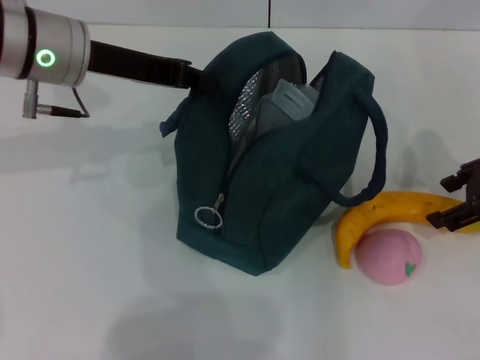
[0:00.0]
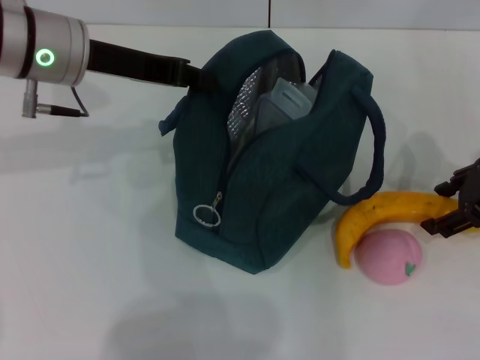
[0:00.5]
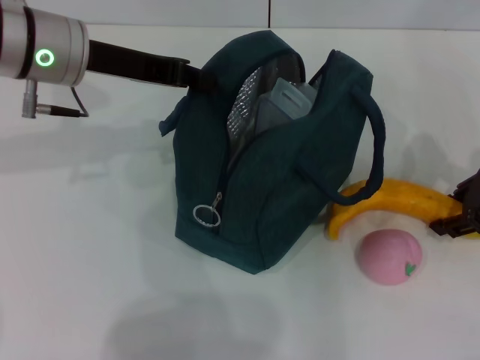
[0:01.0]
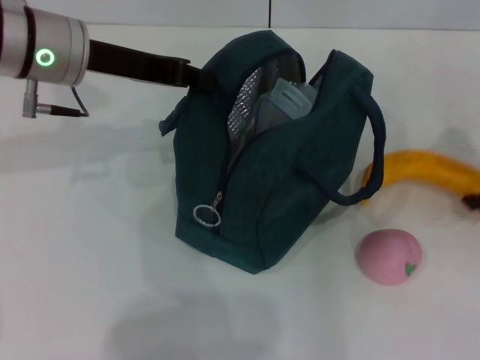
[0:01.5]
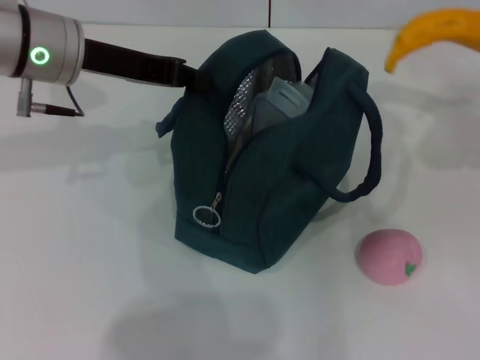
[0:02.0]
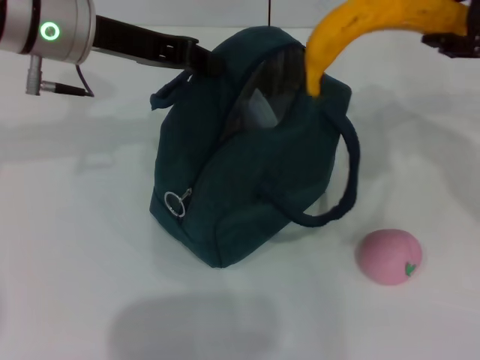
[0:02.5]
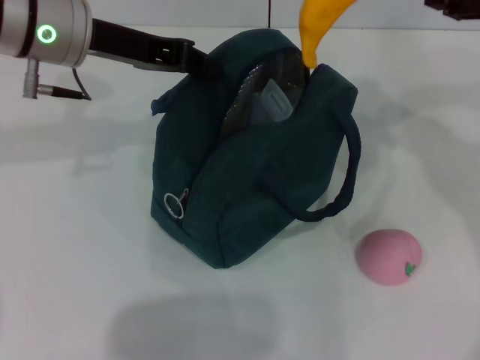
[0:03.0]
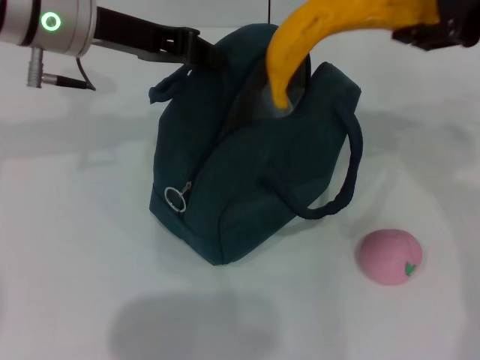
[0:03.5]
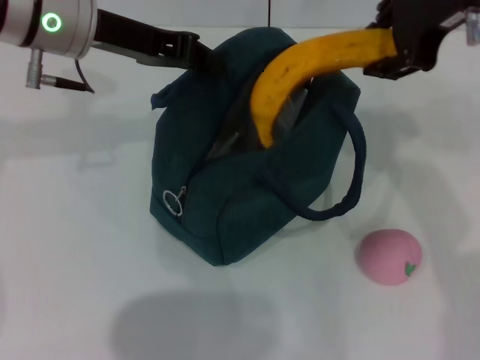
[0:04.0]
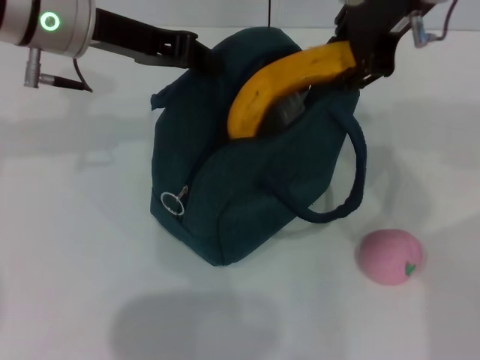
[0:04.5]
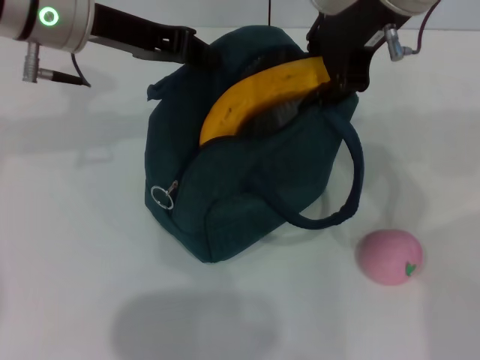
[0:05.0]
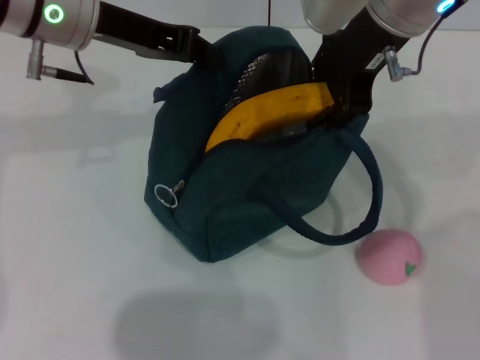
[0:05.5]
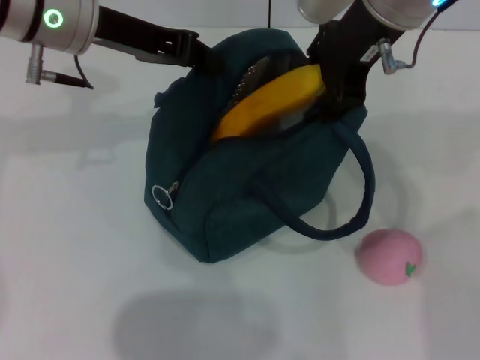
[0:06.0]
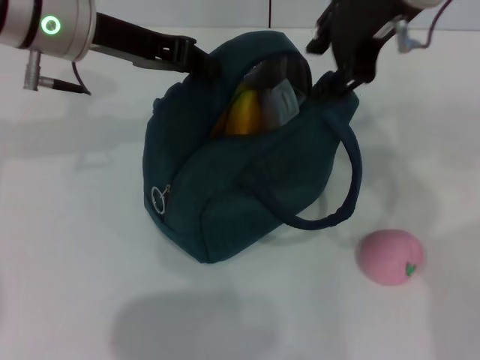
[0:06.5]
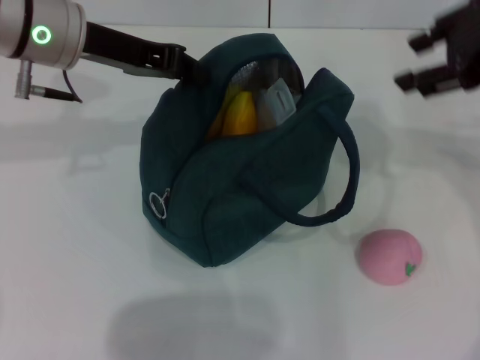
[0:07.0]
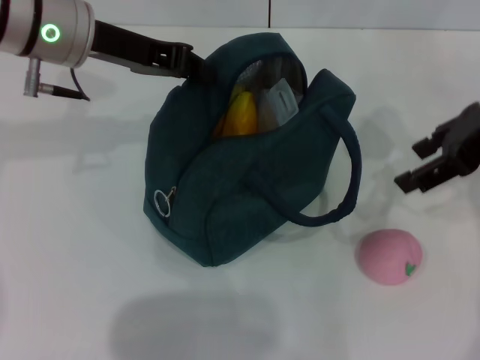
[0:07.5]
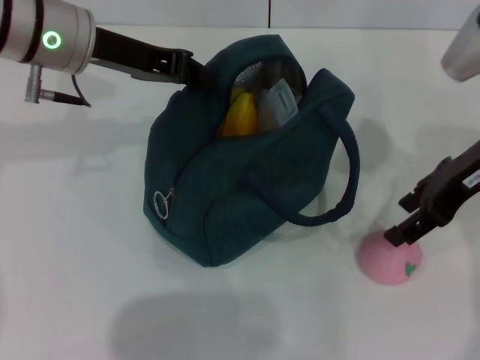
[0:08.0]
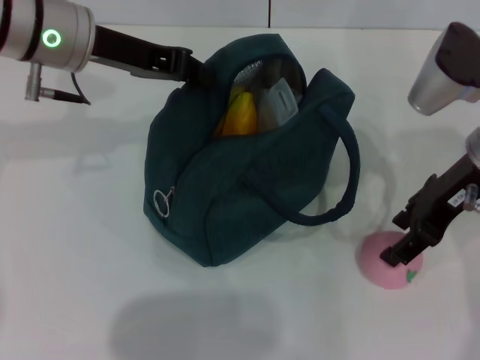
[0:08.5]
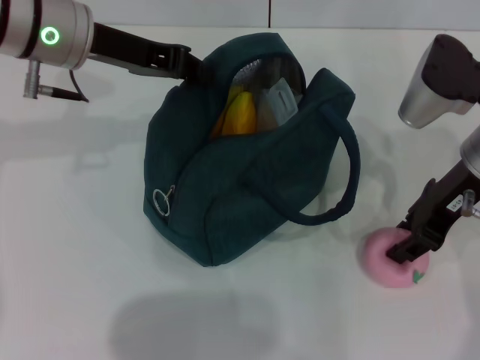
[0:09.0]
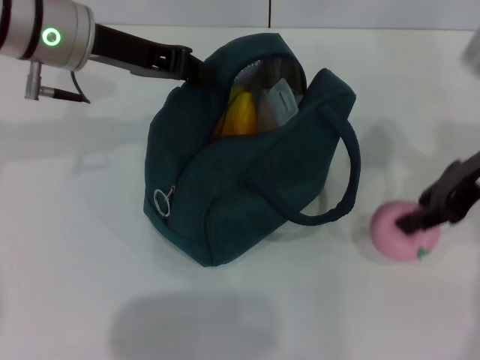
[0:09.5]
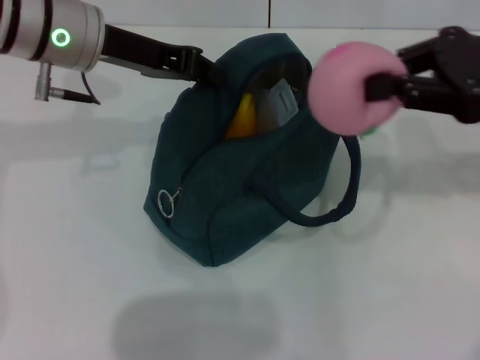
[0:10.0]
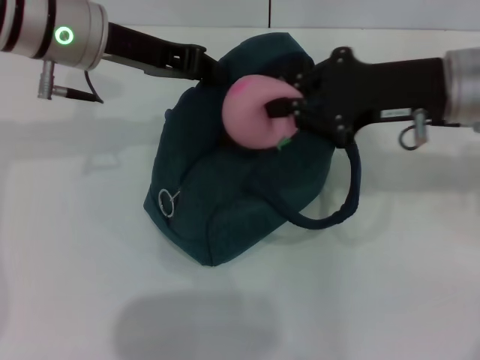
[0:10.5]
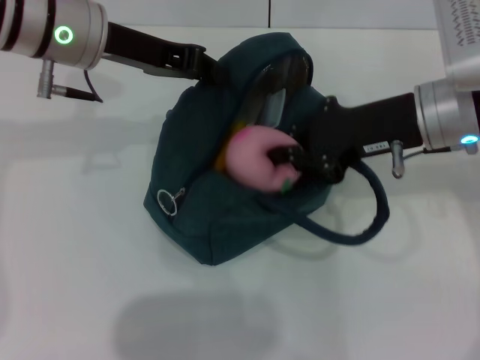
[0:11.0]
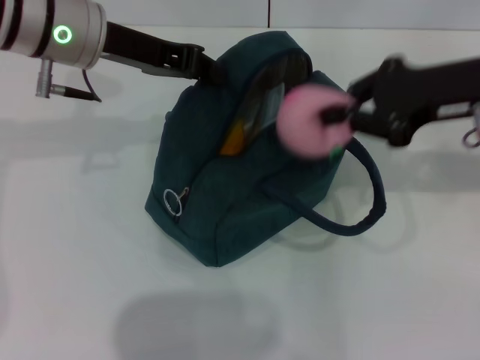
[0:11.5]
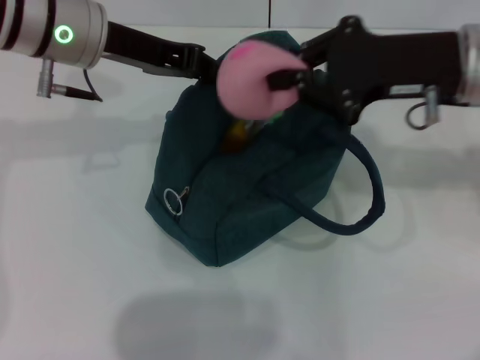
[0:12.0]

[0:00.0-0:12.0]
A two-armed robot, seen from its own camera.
Step, 1.5 to 6.0 s: Put the banana into the lunch bag with your right hand.
Step, 6.5 to 9.0 s: Grab the peach with your right hand.
0.0 to 2.0 s: The right gripper travels upward by about 5 cm, and closes up.
2.0 to 4.0 s: The right gripper shifts about 20 cm to the left and upward.
4.0 to 6.0 s: The right gripper travels to the left by about 5 cm.
6.0 to 8.0 s: The right gripper heads to the right and downward, covering about 15 cm.
8.0 to 10.0 s: The right gripper moves about 5 cm, and closes its fingers.
10.0 to 12.0 s: The right gripper heads to the left, covering roughly 5 cm.

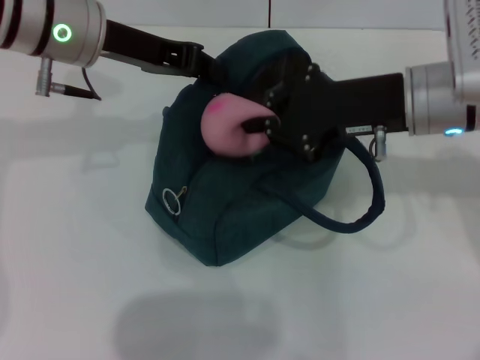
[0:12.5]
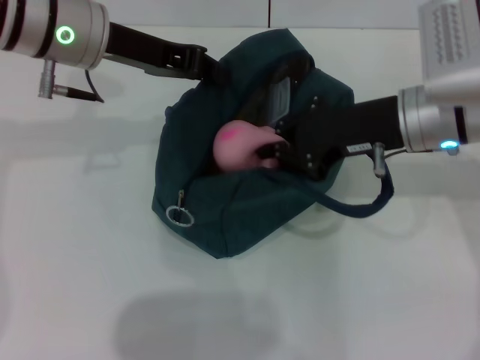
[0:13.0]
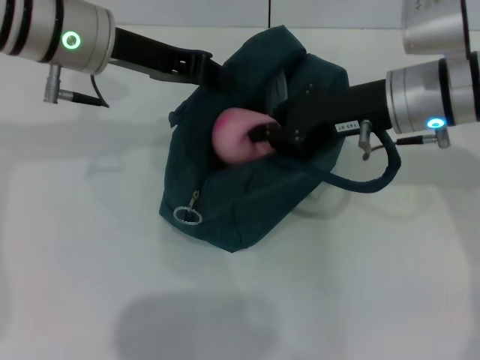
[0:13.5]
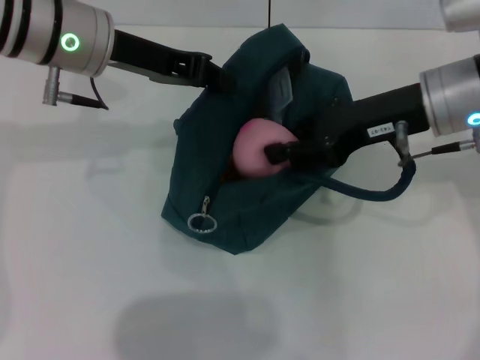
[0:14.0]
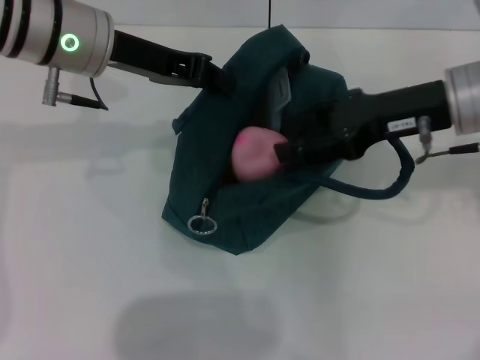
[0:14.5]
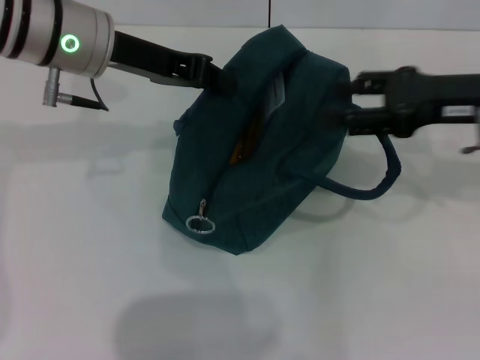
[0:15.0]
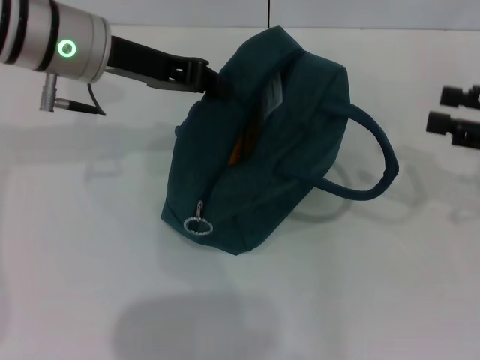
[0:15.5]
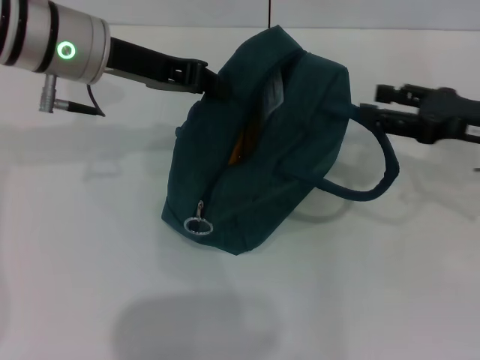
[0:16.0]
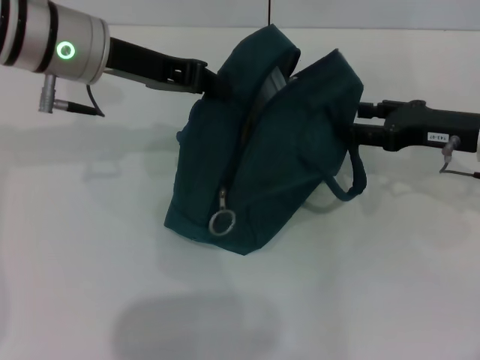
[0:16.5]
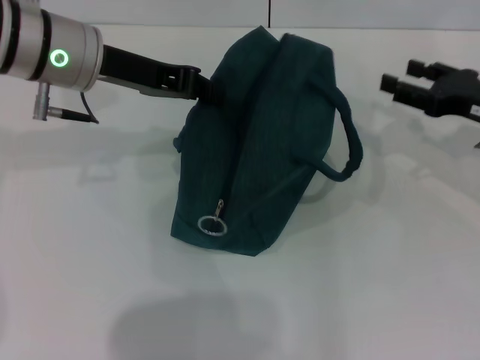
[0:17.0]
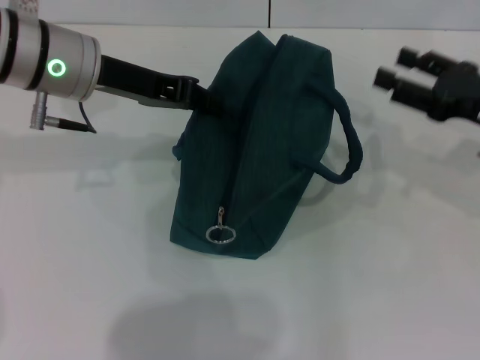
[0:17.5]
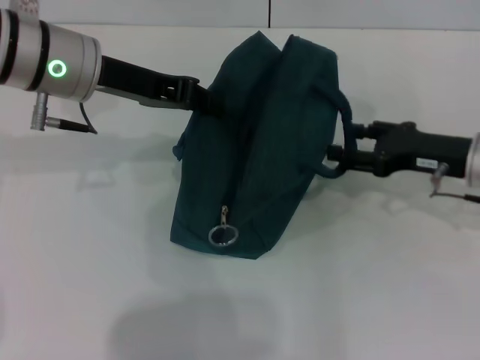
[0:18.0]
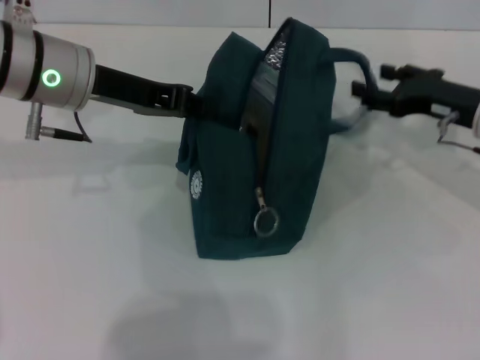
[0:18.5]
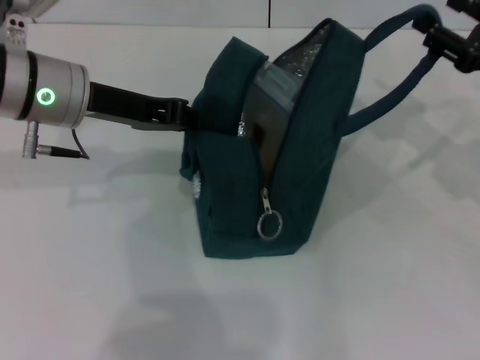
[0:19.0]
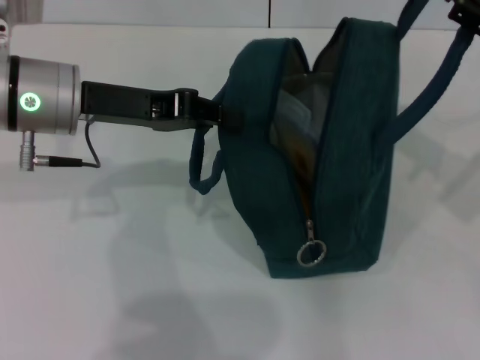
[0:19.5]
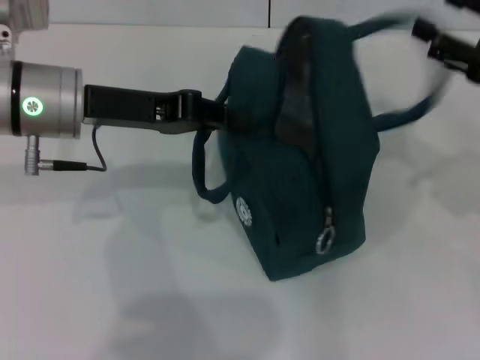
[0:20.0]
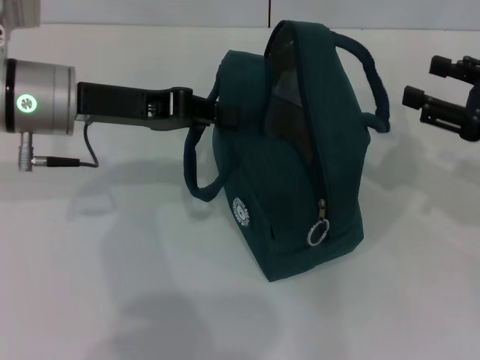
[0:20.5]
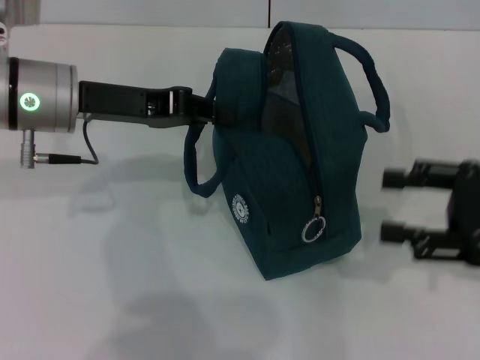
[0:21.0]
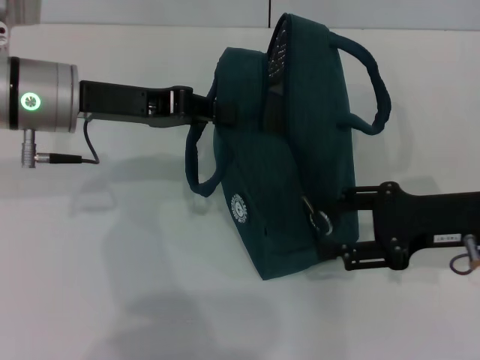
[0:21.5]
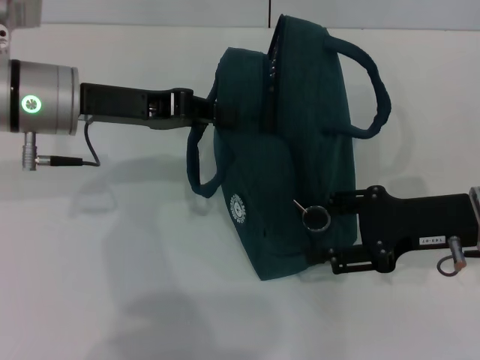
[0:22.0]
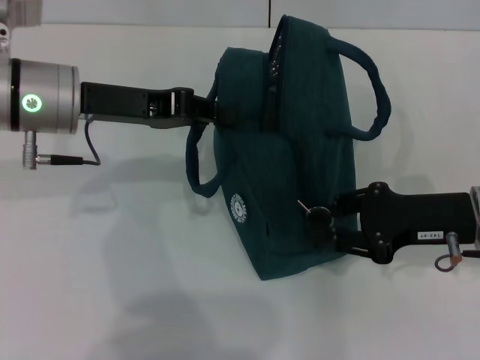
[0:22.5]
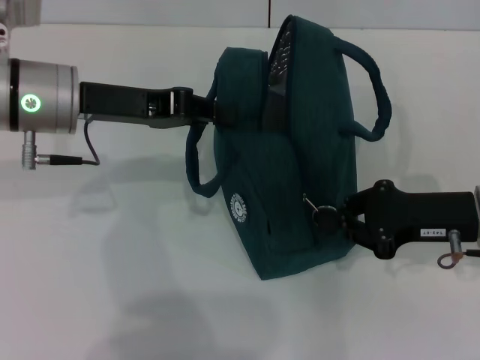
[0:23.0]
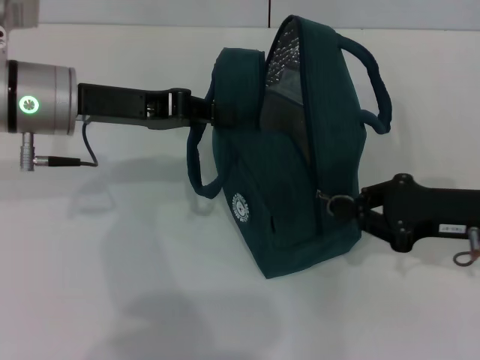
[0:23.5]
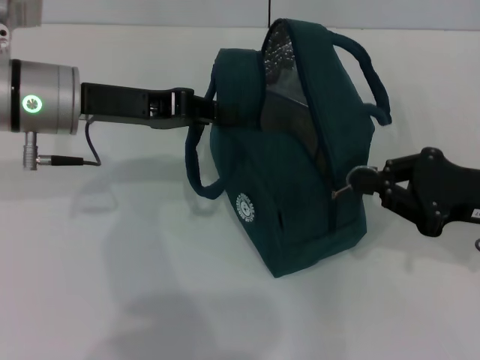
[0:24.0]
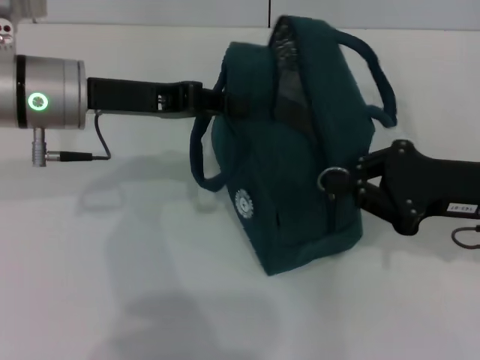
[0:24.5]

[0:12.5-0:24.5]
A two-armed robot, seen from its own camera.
Step, 15.0 to 20.0 s: Hold the lunch bag with your right hand.
12.5 to 14.5 s: The right gripper opens its fingers.
14.5 to 16.5 s: The right gripper shifts approximately 10 cm downward and to the right.
18.5 to 20.5 s: The right gripper heads backward, covering some 10 cm.
20.5 to 22.5 s: The right gripper moves to the left and downward, roughly 10 cm.
22.5 to 24.5 s: The right gripper closes up.

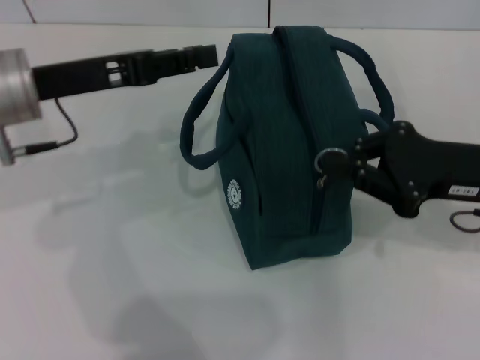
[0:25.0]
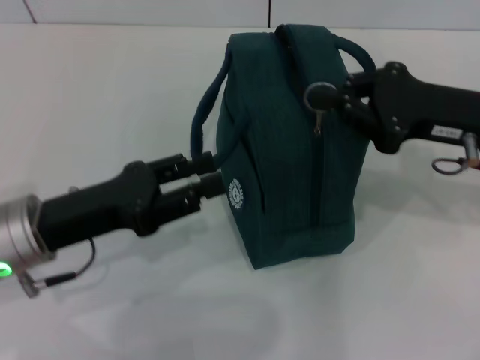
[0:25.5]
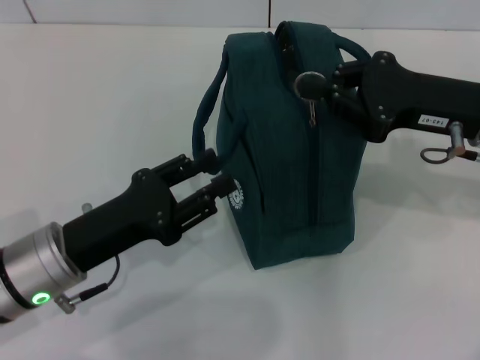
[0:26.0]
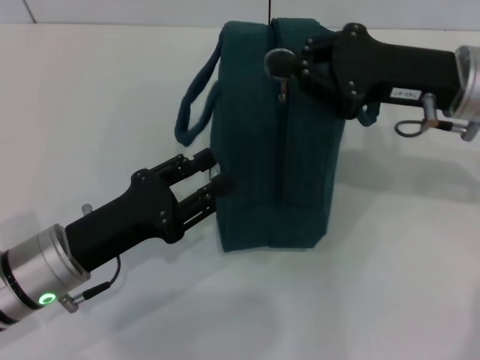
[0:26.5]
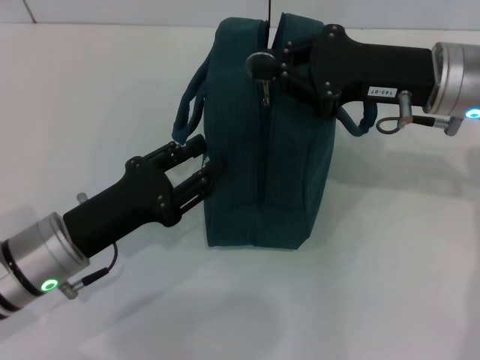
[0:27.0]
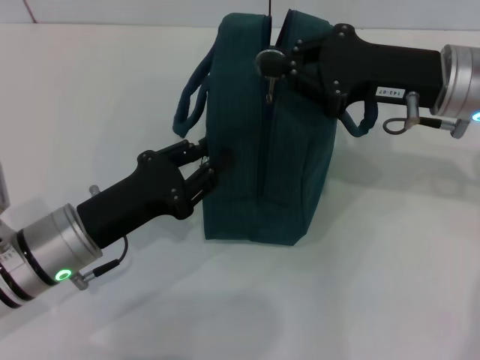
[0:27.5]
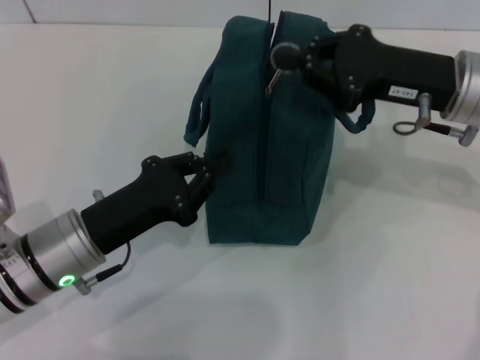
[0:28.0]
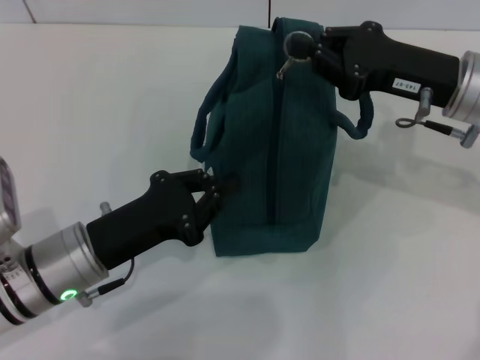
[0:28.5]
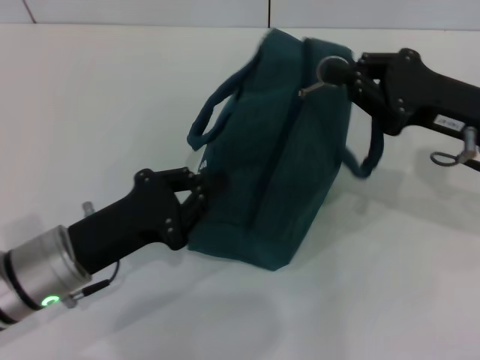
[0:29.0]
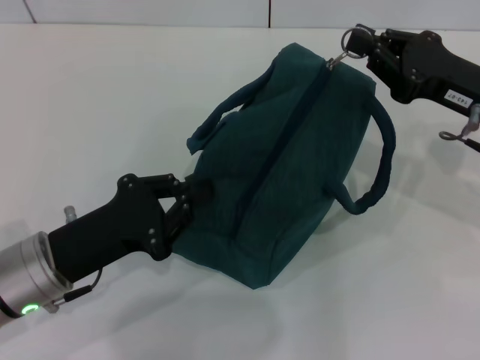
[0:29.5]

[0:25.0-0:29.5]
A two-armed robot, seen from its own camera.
25.0 to 27.0 s: The left gripper goes approximately 15 cm downward and backward, and opens its fingers; the right gripper heads forward and to the left, covering some 10 cm.
27.0 to 29.5 s: The left gripper closes its fingers; the right gripper shifts roughly 5 cm to the right.
